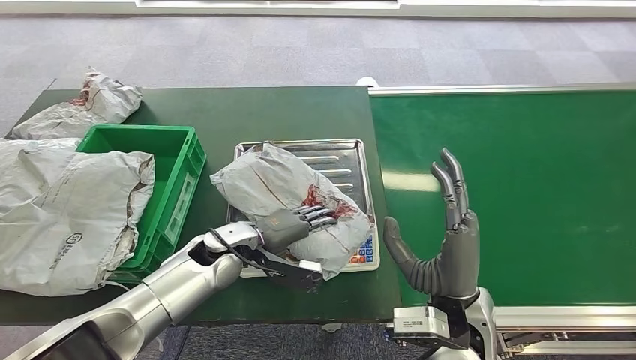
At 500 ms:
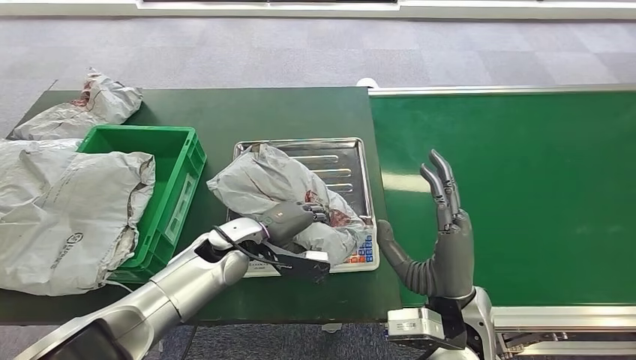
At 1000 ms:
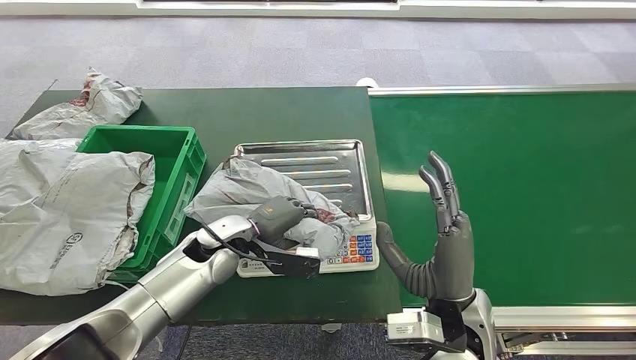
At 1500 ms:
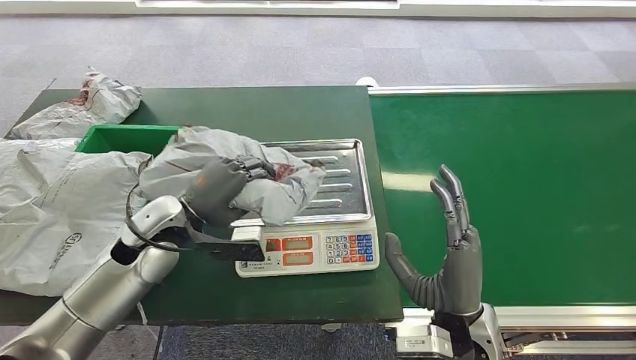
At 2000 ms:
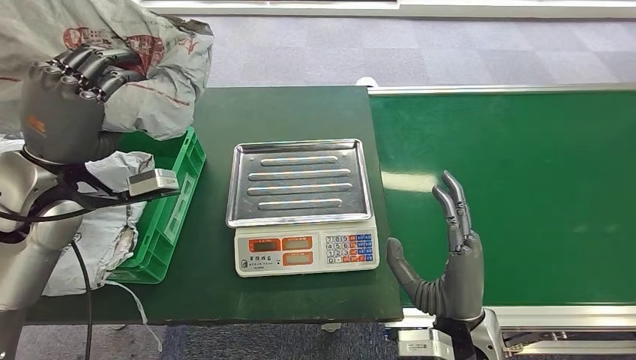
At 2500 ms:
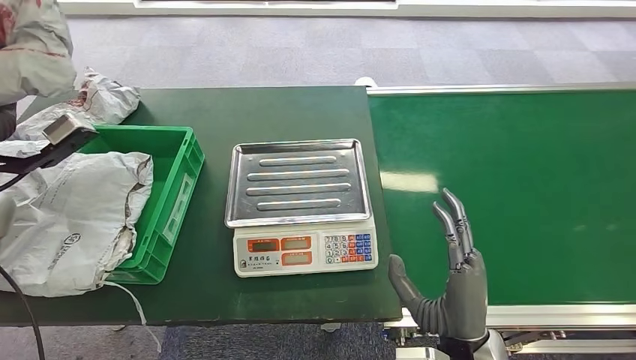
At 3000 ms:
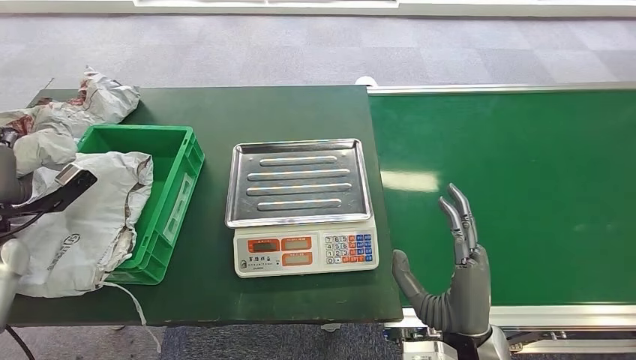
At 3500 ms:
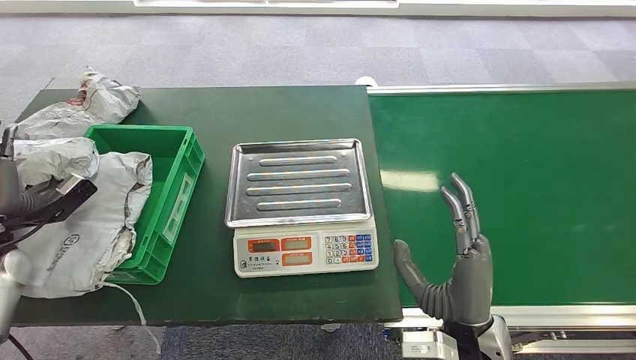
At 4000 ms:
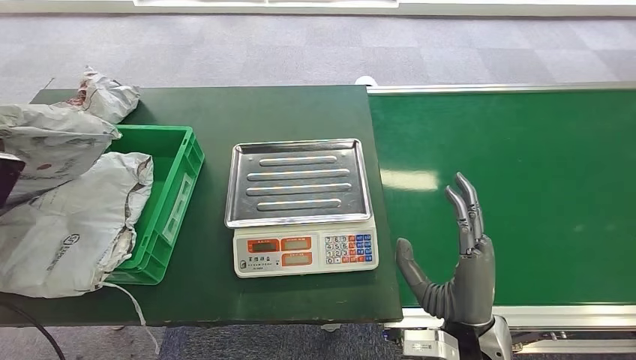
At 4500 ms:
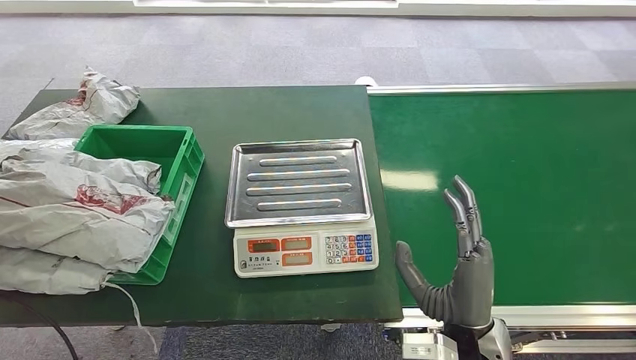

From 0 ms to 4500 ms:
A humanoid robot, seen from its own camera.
Step, from 0 ms to 1500 ms: Pick up the package from the inbound machine.
Step, from 2000 ms to 4500 ms: Place the package into the parcel locker.
